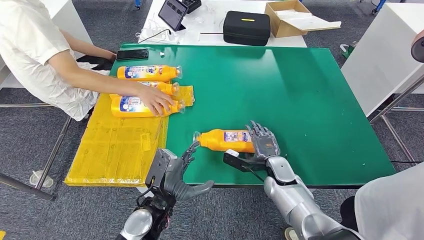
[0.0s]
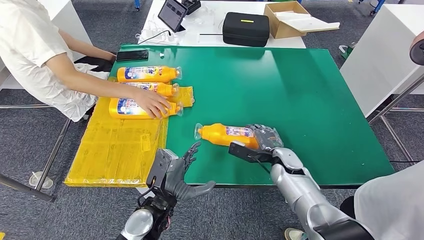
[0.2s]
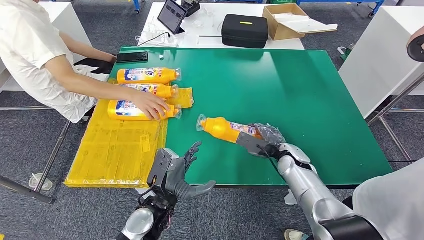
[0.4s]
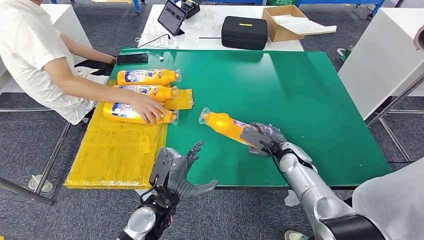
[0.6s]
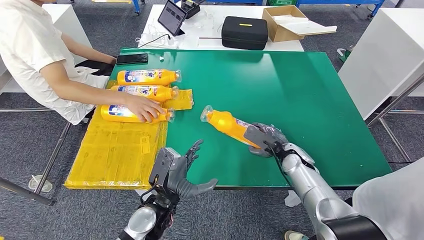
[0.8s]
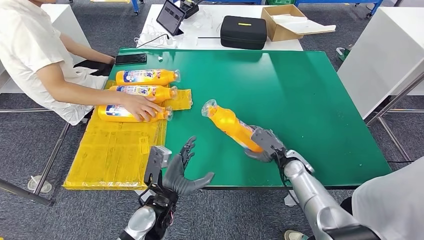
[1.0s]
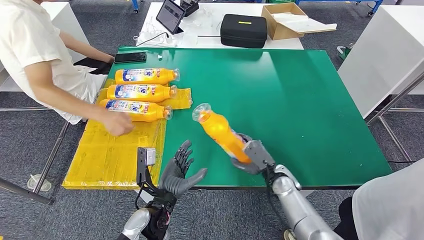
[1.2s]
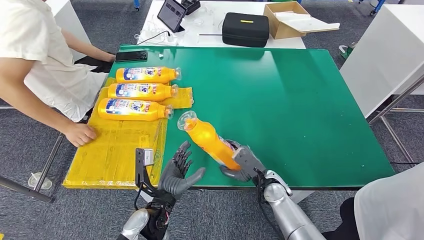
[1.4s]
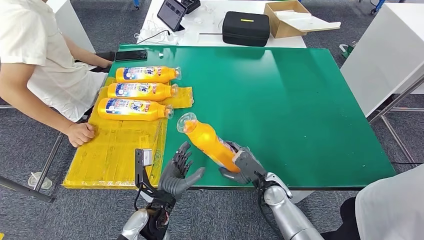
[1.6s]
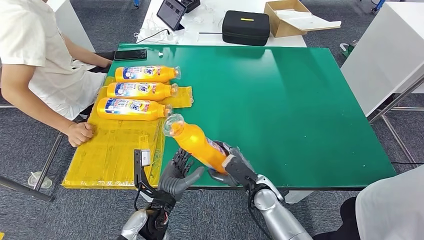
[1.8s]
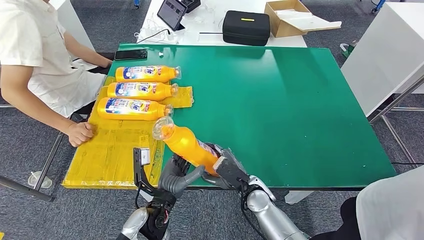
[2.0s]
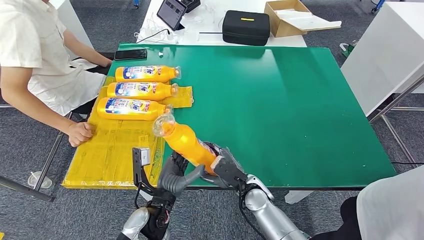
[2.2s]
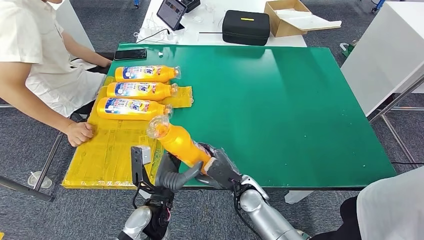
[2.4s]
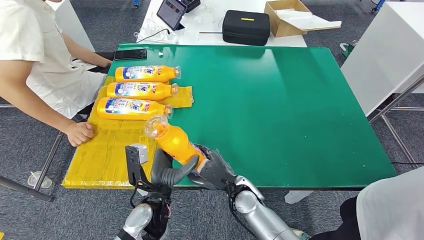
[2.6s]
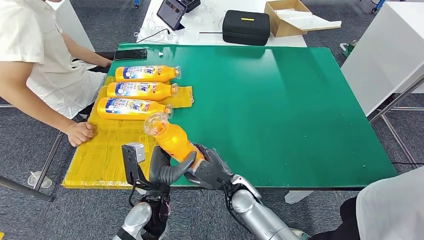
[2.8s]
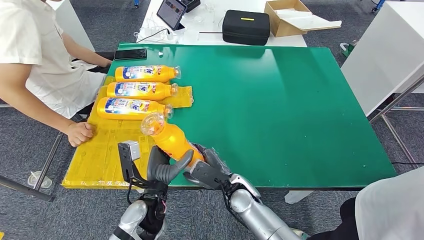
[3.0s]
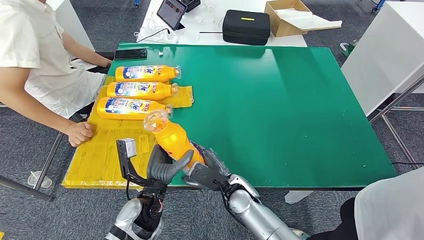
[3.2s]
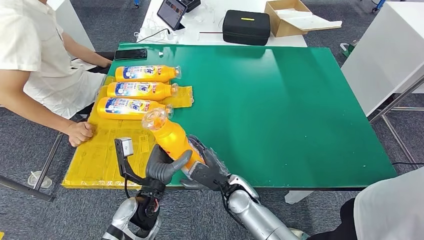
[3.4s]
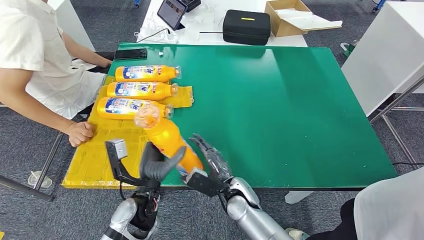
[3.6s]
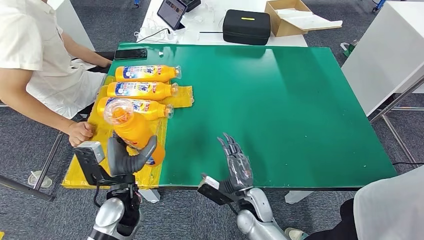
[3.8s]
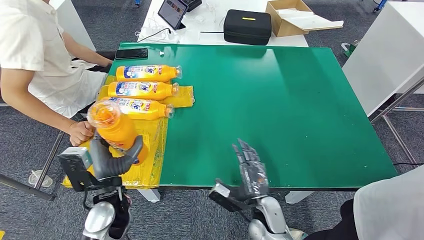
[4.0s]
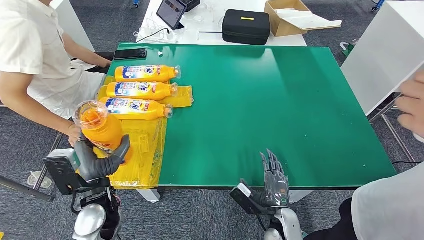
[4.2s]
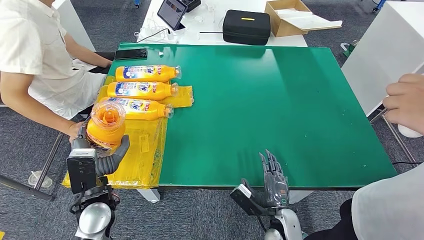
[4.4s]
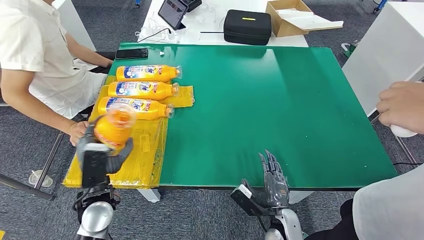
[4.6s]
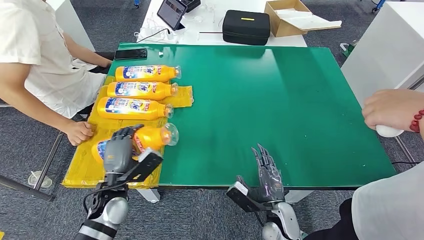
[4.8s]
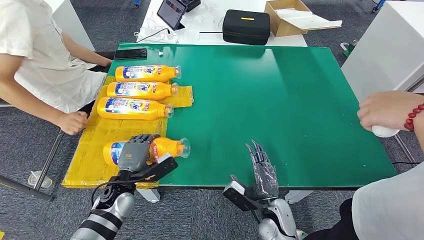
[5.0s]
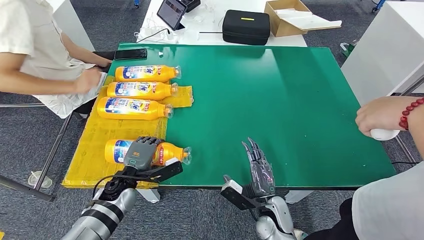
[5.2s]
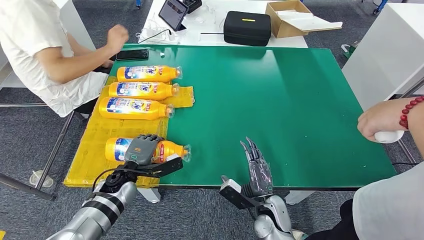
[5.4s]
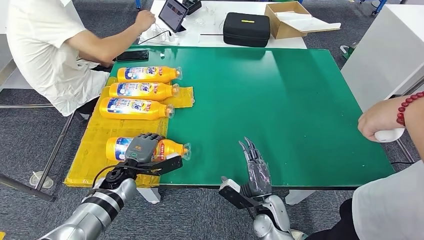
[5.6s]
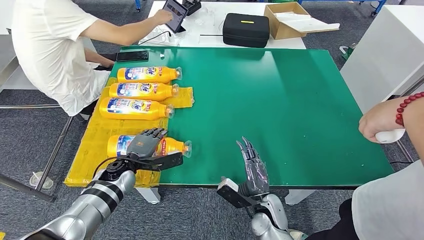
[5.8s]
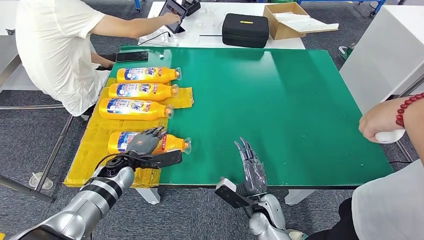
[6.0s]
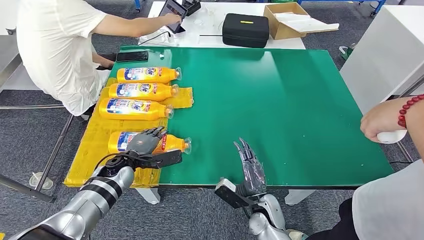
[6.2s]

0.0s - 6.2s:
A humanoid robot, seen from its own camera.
Step, 0.0s - 2.2s: Pick up the fast-moving consumer goods bottle from the table.
Step, 3.2s - 6.0s: Flip the fast-moving consumer goods bottle to the front side.
1.6s - 3.2s: The right hand heads to the left, covering roughly 10 cm.
3.2s - 4.6s: The right hand moves to the right and backward, about 15 cm, while the left hand moves to the left, some 10 cm.
